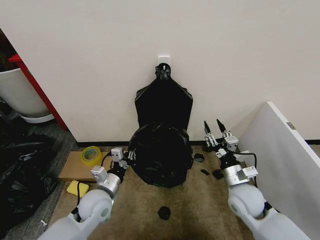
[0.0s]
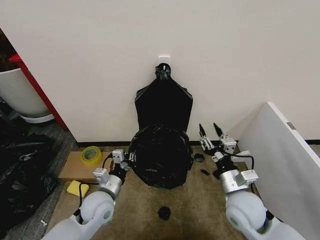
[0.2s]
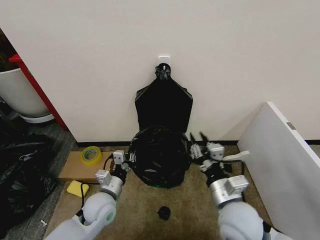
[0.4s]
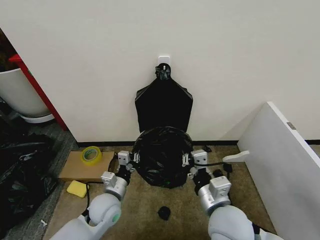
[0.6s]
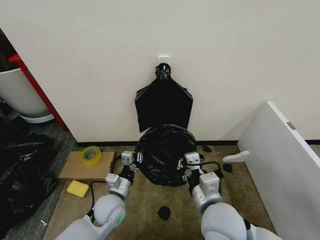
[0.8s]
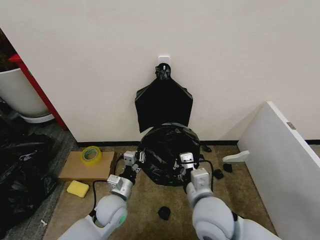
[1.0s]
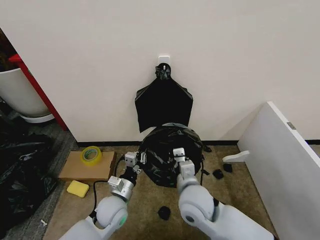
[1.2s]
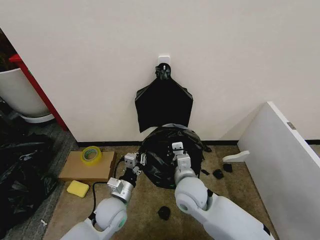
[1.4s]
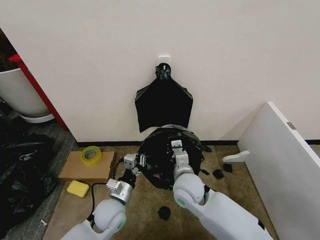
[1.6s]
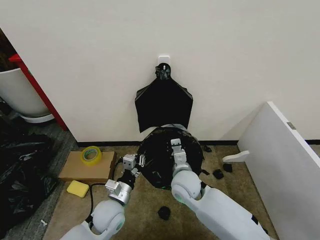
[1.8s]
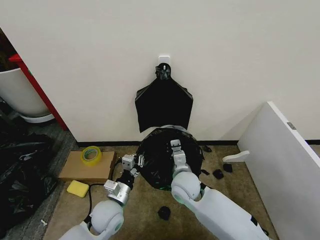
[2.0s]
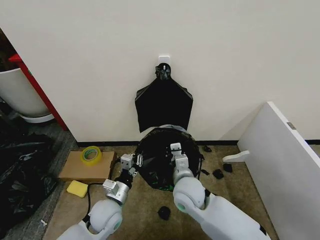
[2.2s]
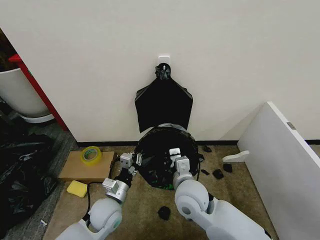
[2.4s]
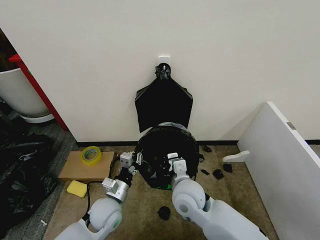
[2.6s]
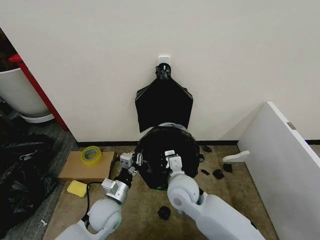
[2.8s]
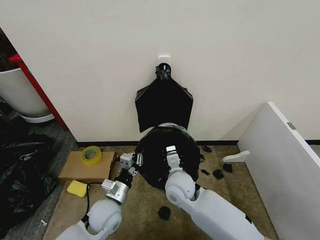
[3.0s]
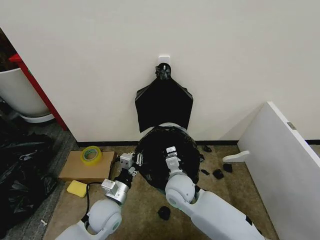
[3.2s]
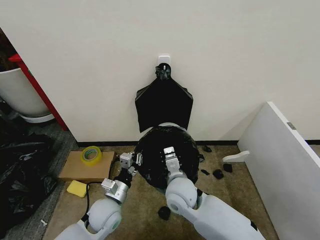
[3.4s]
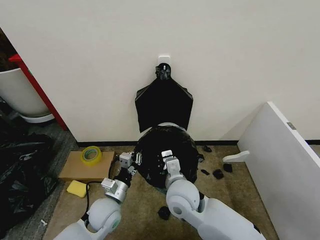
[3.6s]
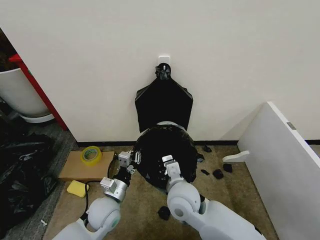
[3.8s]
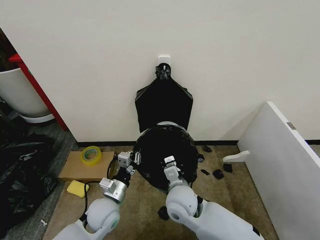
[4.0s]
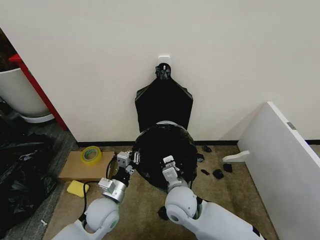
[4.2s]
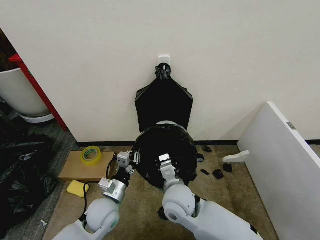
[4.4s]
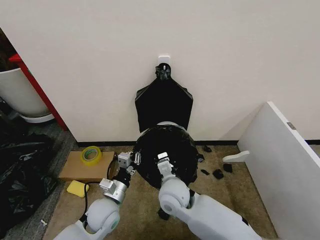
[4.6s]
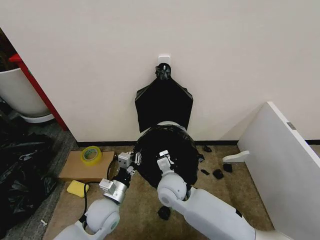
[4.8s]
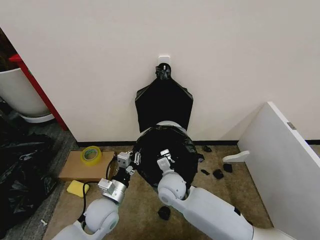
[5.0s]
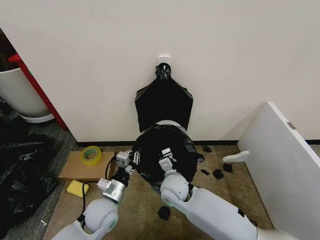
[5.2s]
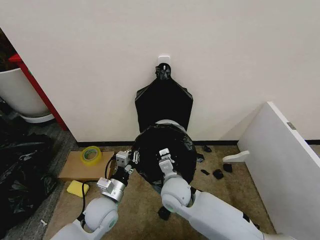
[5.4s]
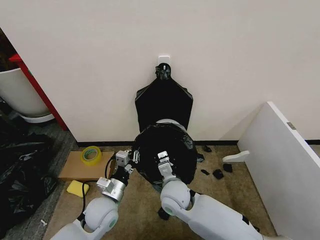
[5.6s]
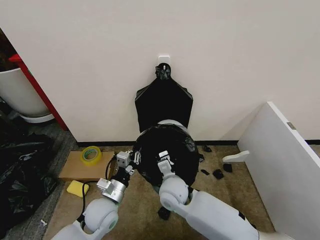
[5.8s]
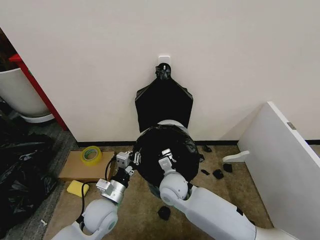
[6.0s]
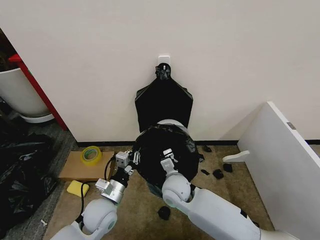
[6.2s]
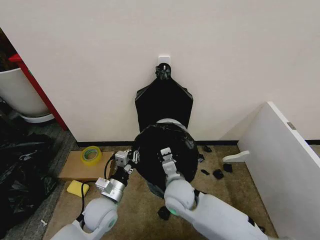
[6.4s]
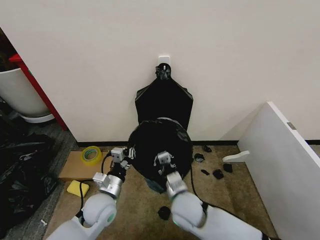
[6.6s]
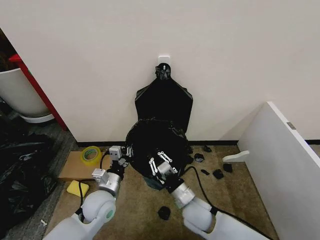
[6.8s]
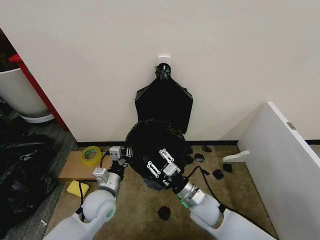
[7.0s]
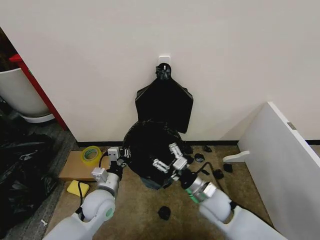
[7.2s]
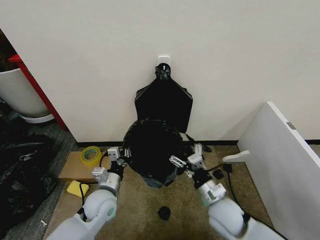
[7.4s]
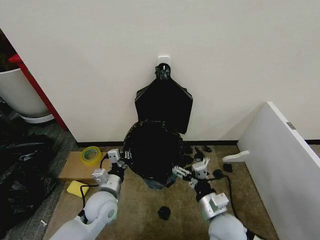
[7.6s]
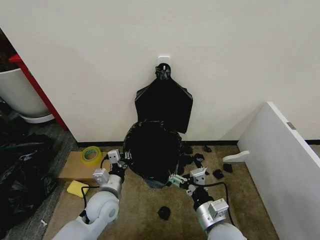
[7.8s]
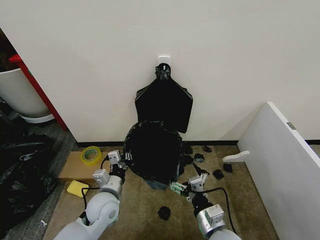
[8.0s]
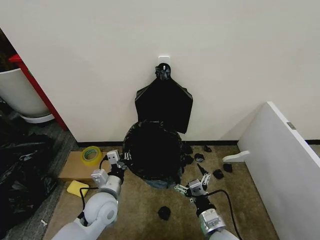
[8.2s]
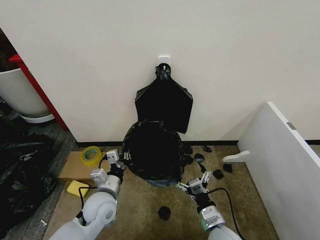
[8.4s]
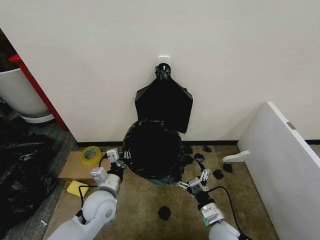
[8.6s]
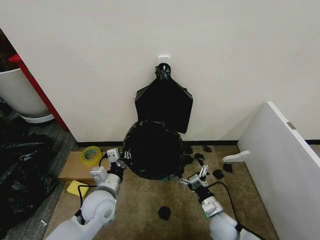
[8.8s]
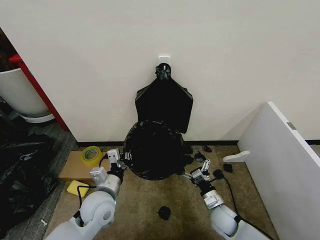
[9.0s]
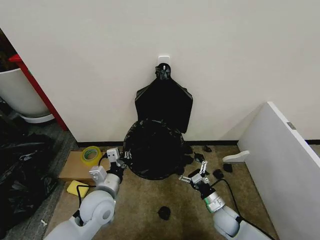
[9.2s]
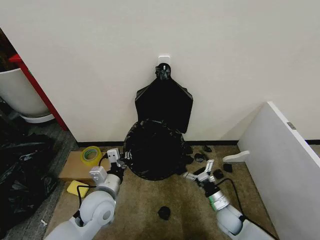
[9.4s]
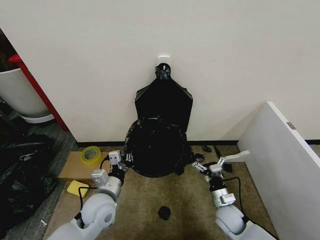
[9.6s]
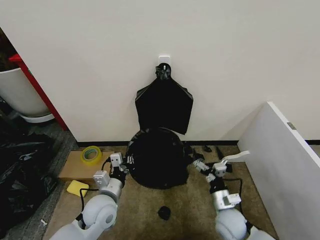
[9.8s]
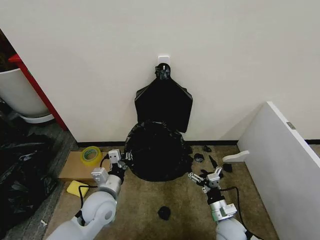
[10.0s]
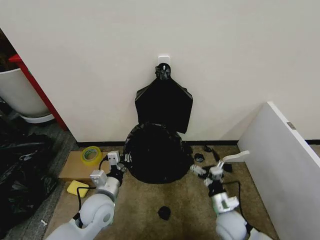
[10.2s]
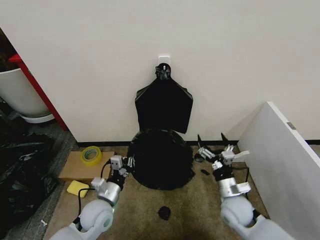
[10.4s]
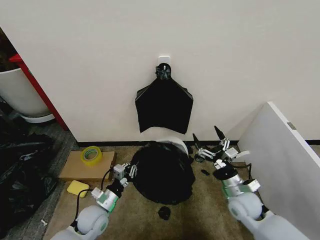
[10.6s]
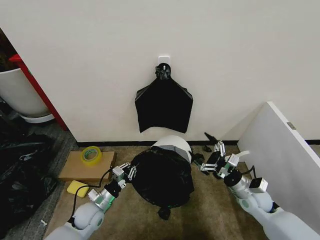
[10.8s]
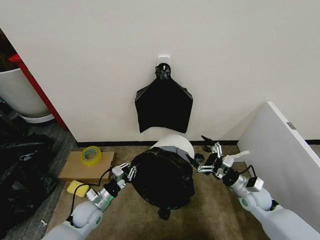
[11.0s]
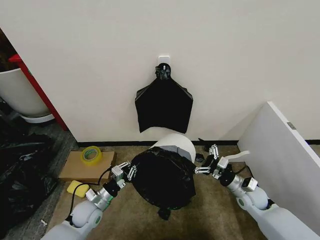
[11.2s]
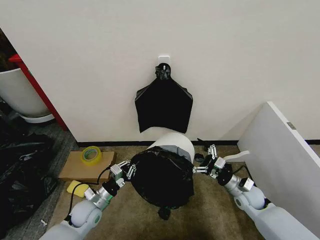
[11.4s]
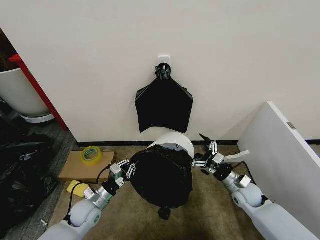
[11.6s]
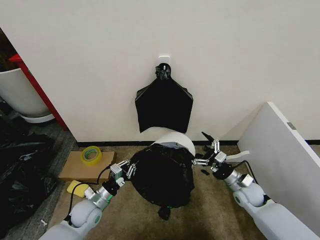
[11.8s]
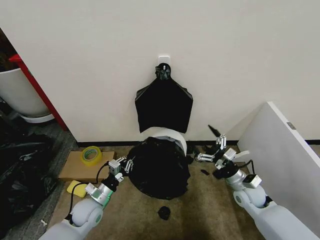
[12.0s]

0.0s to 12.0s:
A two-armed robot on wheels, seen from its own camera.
Task of the whole recording: Place the garbage bag over the trash bin.
0.0s to 1.6s: The left gripper moves some 5 cm. Meanwhile the right gripper heads to the left, covering approximately 20 cm, and closes.
1.6s to 3.0s: The grippers stay close to where they were, moving slightly.
3.0s to 4.4s: The right gripper heads backward, covering about 5 cm.
4.4s to 6.0s: The right gripper goes some 5 cm forward.
6.0s to 7.6s: The right gripper travels backward and to the right by roughly 20 cm, and opens up.
7.6s to 9.0s: The right gripper travels downward, forward and to the right by some 20 cm.
9.0s to 10.4s: The left gripper moves downward, some 5 cm. The right gripper heads upward, covering about 10 cm.
10.4s to 12.0s: The left gripper goes about 5 cm to the left. The right gripper heads to the right and forward, covering approximately 10 cm.

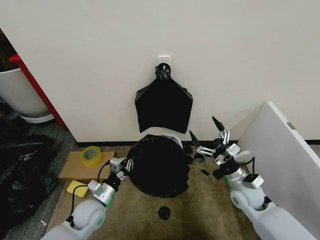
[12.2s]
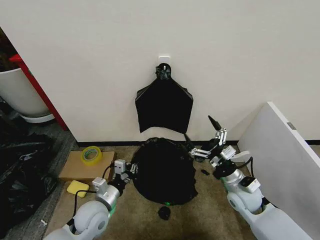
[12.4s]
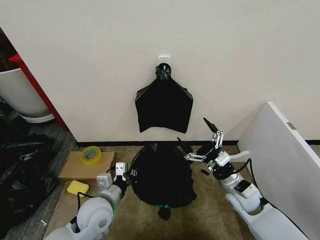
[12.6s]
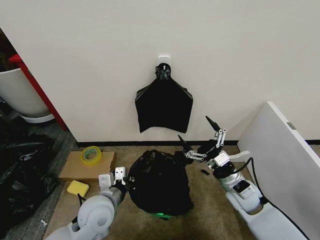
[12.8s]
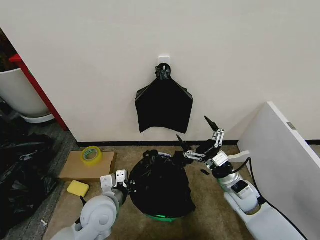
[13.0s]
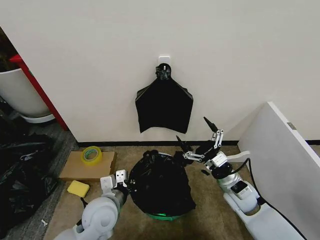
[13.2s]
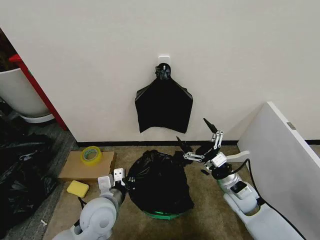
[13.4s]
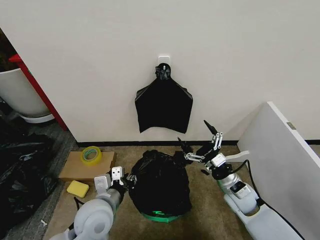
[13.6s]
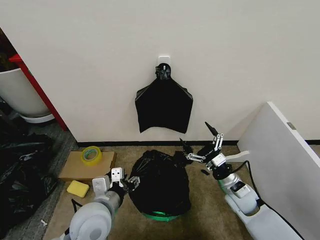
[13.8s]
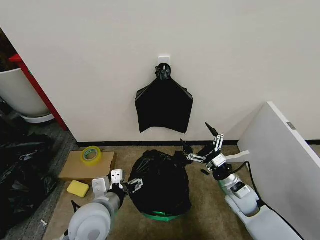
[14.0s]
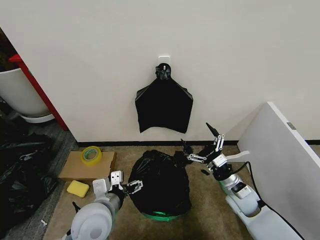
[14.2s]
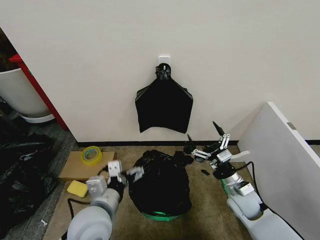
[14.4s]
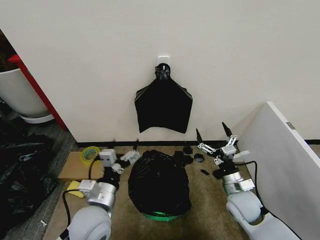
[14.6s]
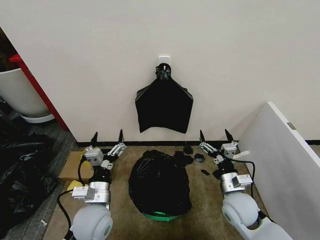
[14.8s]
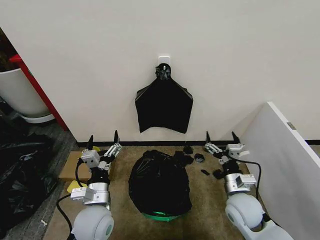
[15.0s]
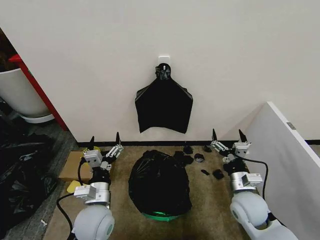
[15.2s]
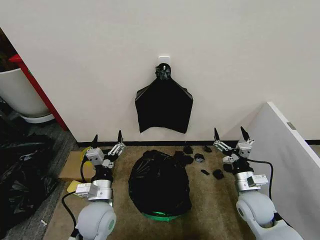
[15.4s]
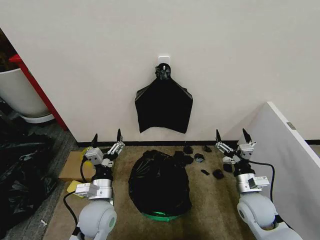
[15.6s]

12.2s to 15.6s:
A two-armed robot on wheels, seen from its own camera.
Task of the whole recording: Place the garbage bag over the trash bin.
12.2s to 13.8s: The left gripper moves upward, to the right and backward, roughly 15 cm, and opens its fingers.
13.8s to 15.6s: The right gripper shifts by approximately 5 cm; the left gripper is displaced downward by some 5 cm, and opens up.

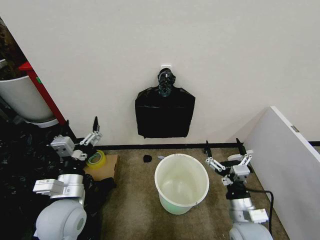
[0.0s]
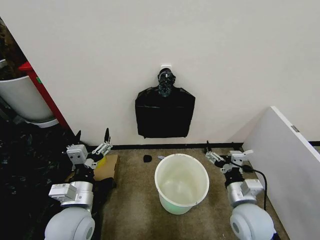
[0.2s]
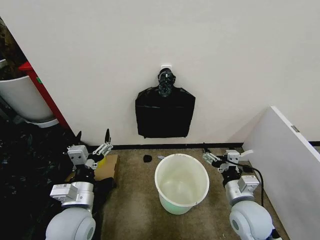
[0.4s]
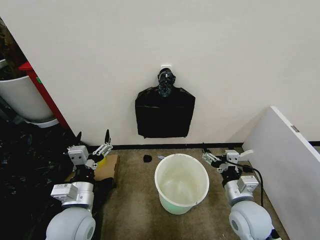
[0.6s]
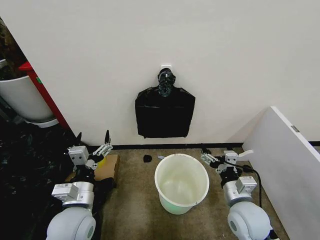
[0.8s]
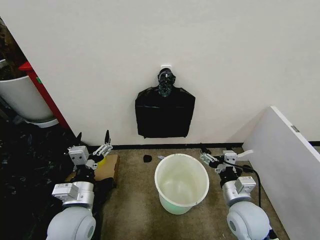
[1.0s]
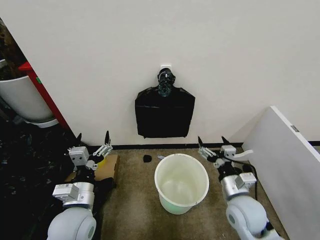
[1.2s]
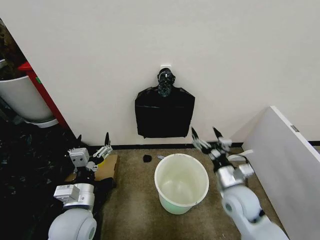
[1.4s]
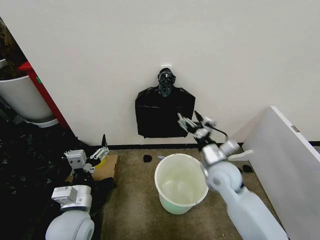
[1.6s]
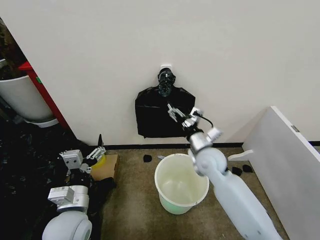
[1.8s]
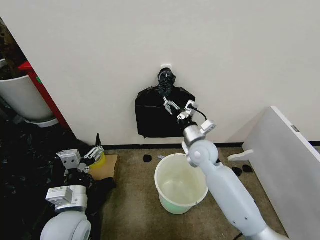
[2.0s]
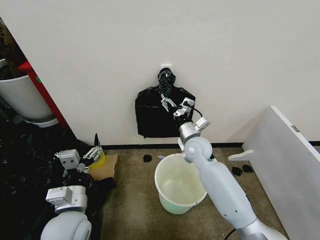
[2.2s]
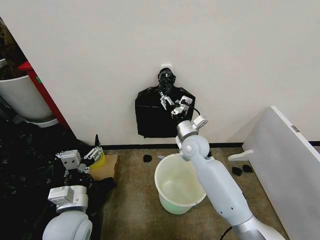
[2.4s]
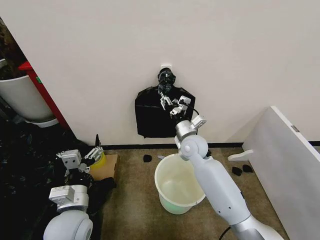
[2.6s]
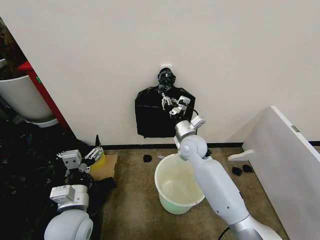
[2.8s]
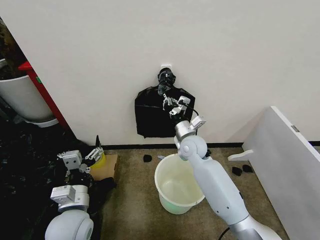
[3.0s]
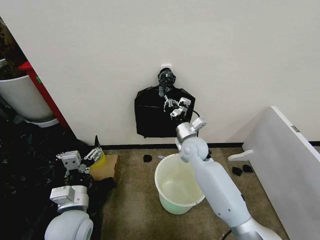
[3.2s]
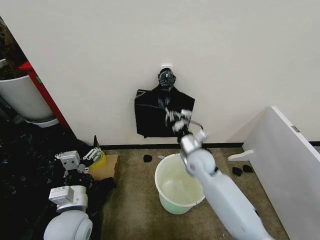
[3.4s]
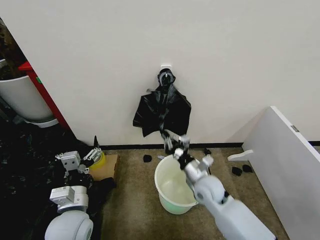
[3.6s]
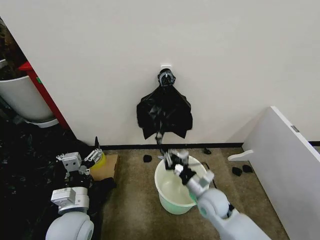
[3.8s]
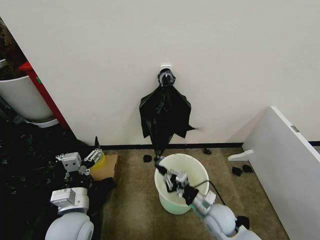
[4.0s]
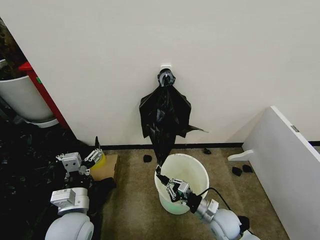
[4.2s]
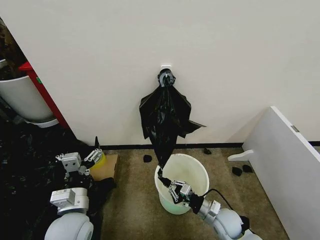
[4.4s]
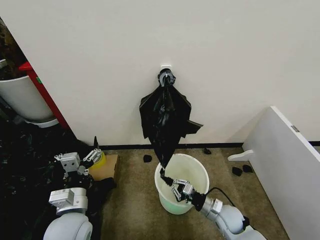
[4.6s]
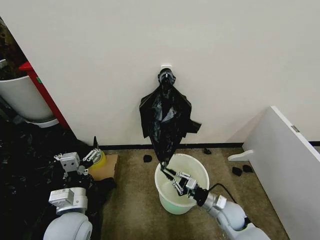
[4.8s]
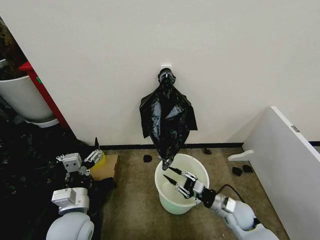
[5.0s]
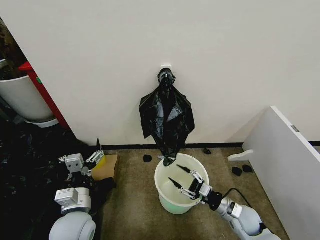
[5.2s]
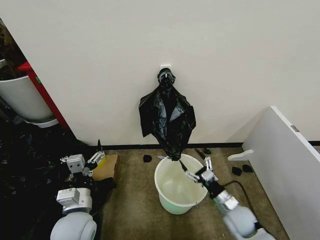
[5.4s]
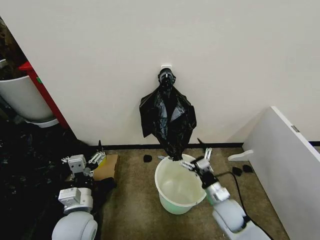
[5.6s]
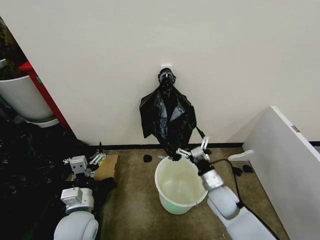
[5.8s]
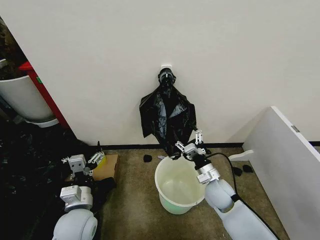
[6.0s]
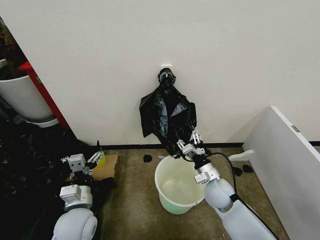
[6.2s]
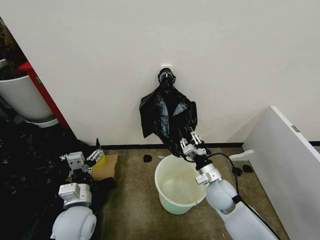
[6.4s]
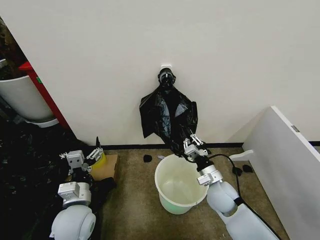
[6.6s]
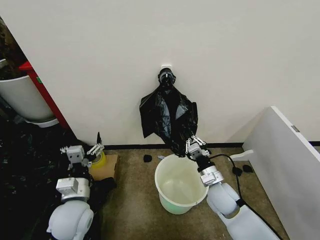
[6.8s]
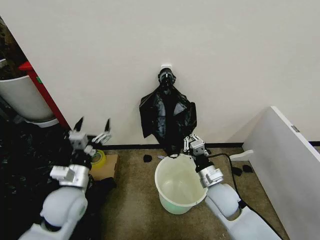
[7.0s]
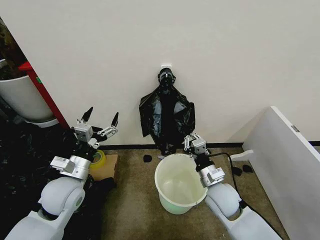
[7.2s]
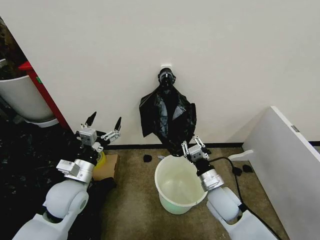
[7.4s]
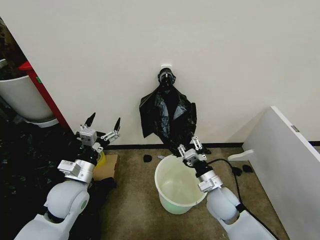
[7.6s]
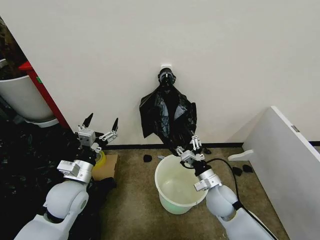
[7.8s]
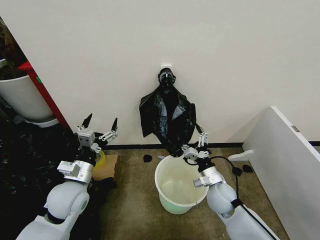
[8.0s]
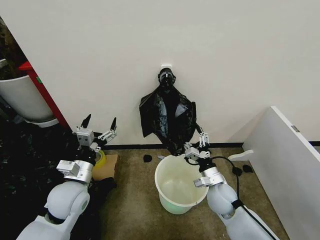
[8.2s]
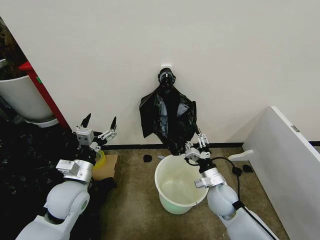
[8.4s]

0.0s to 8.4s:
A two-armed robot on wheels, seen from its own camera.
Task of the whole recording: Place the garbage bag over the trash bin.
1.4s to 2.8s: The right gripper heads forward and to the left, covering roughly 25 cm, and closes.
2.8s to 4.2s: The right gripper travels backward, downward and to the right by some 30 cm.
4.2s to 5.6s: The right gripper moves approximately 10 cm to the right and comes back, and opens up.
5.6s to 7.0s: The left gripper is displaced forward by about 5 cm, while the right gripper travels upward by about 10 cm, and closes up.
7.0s to 8.4s: The right gripper moves some 5 cm, and opens its fingers.
